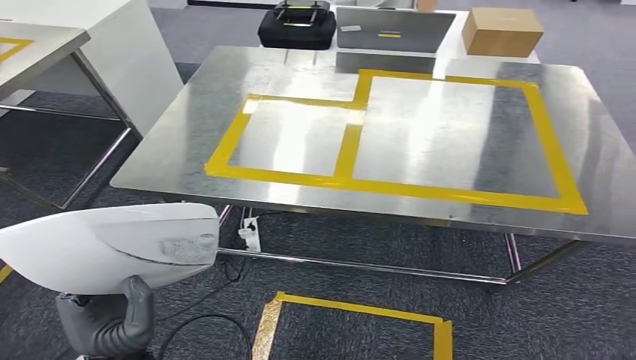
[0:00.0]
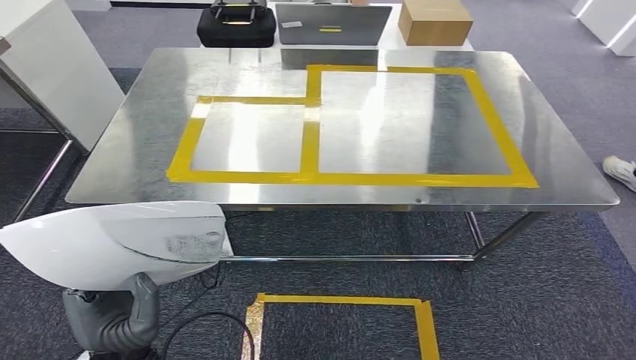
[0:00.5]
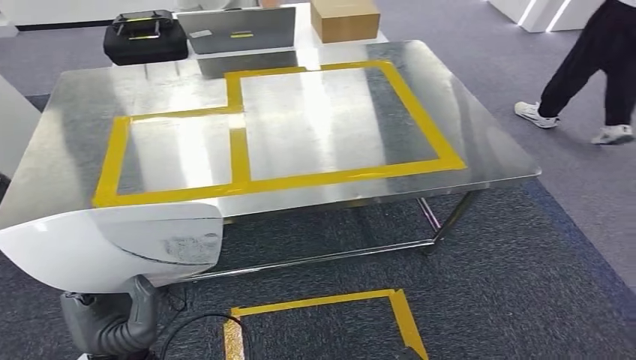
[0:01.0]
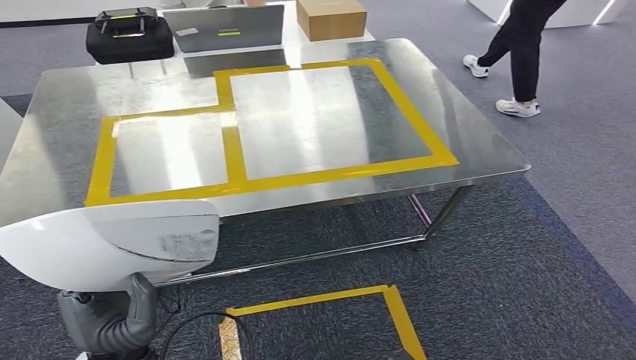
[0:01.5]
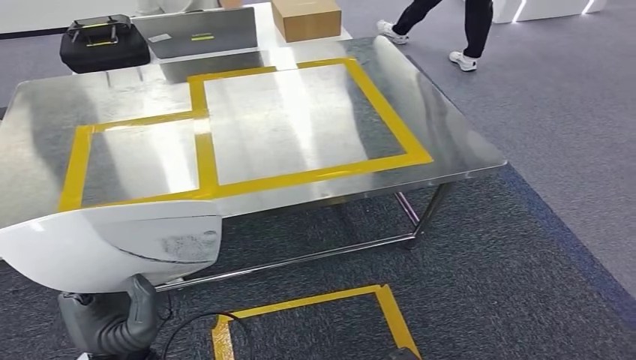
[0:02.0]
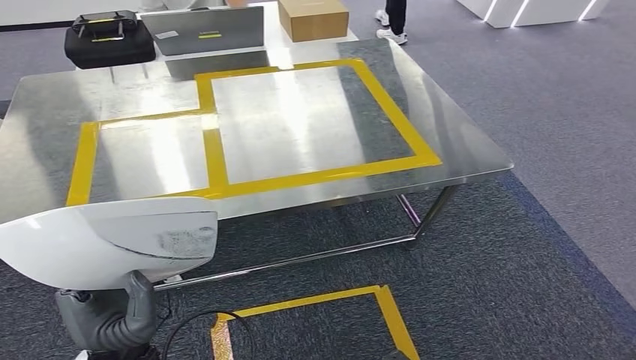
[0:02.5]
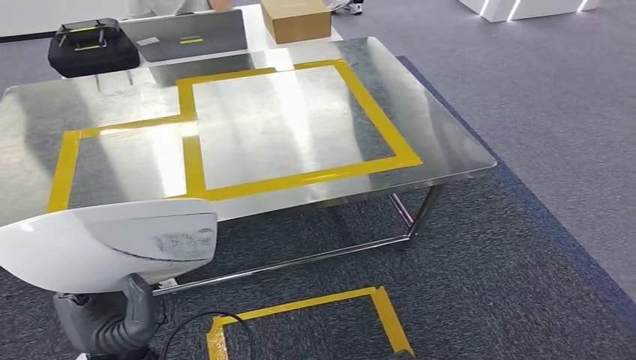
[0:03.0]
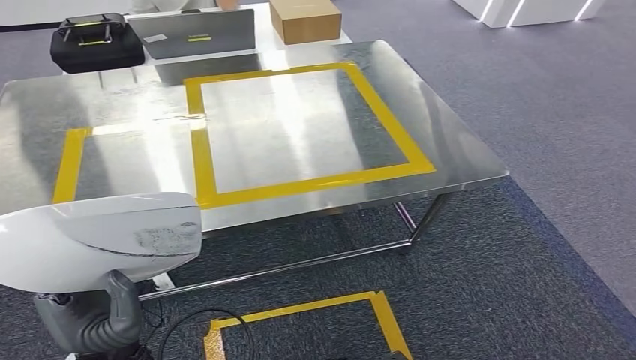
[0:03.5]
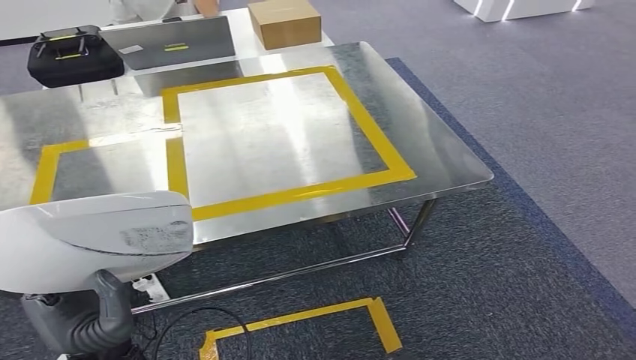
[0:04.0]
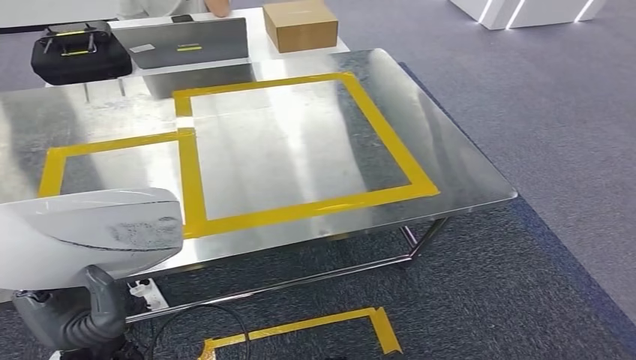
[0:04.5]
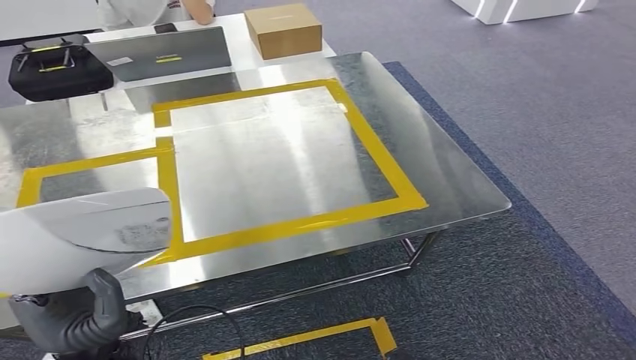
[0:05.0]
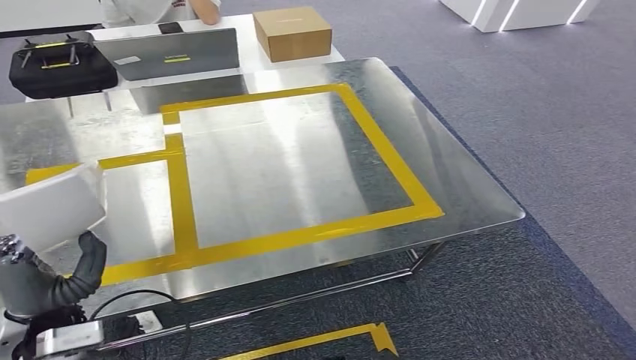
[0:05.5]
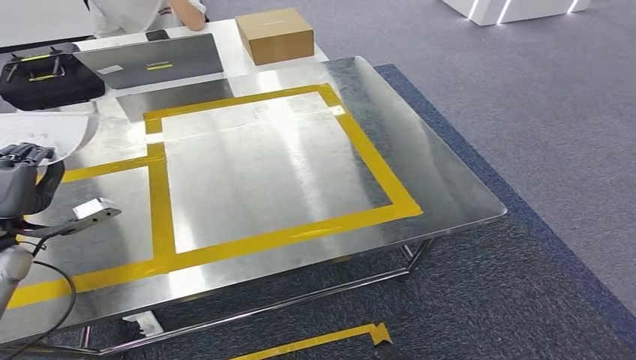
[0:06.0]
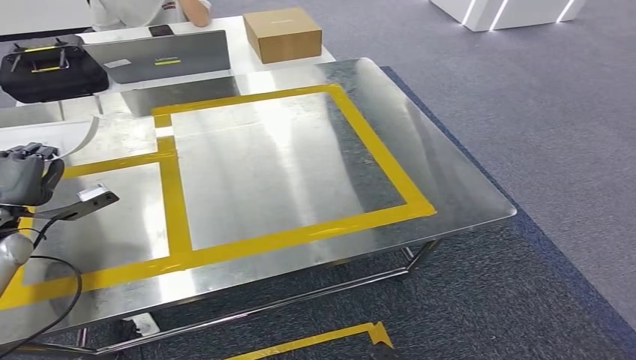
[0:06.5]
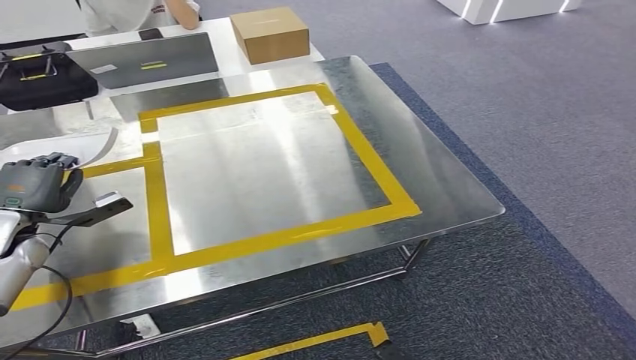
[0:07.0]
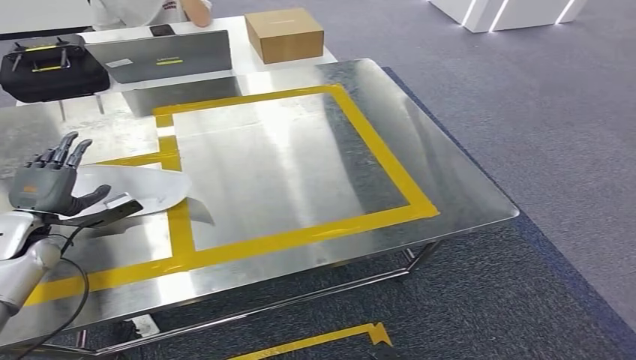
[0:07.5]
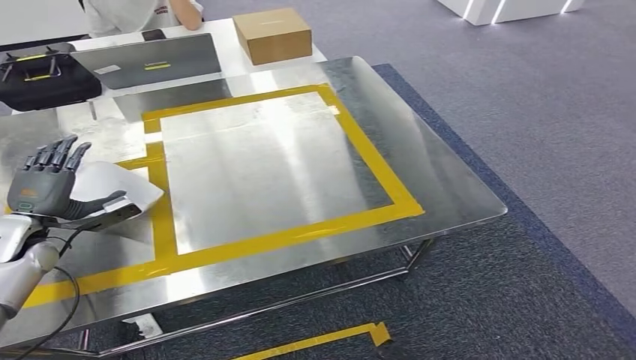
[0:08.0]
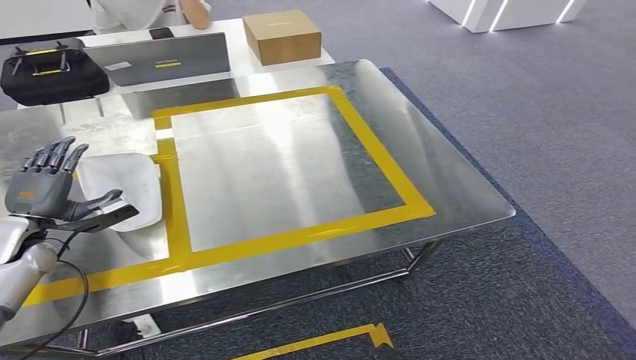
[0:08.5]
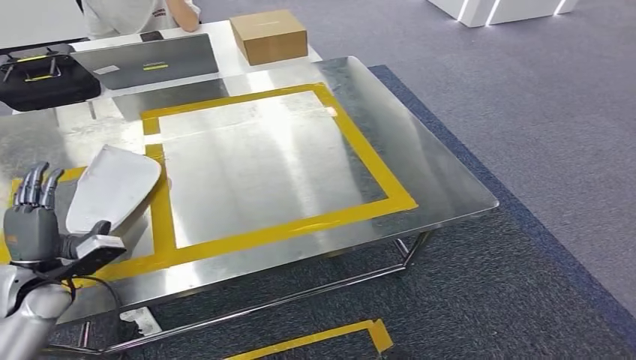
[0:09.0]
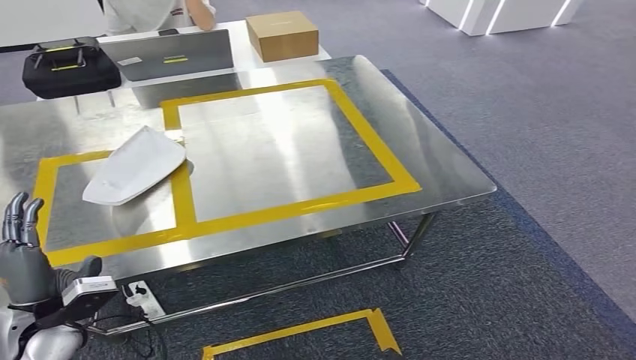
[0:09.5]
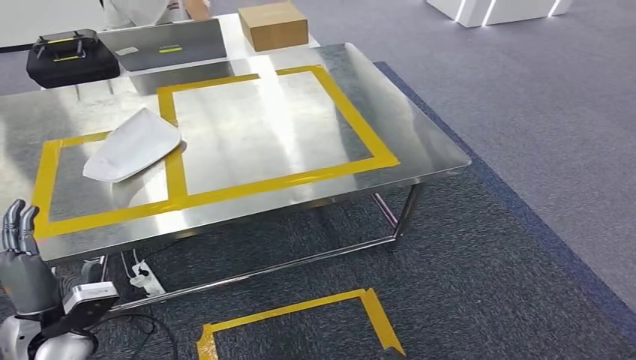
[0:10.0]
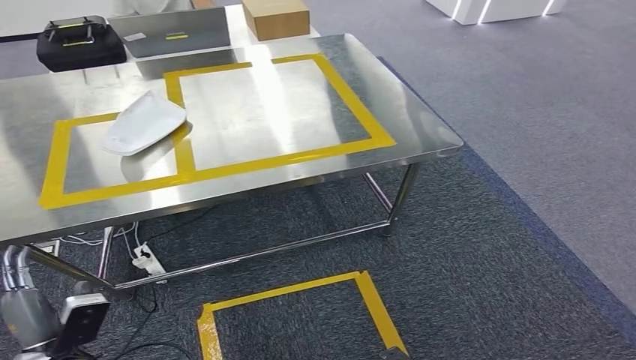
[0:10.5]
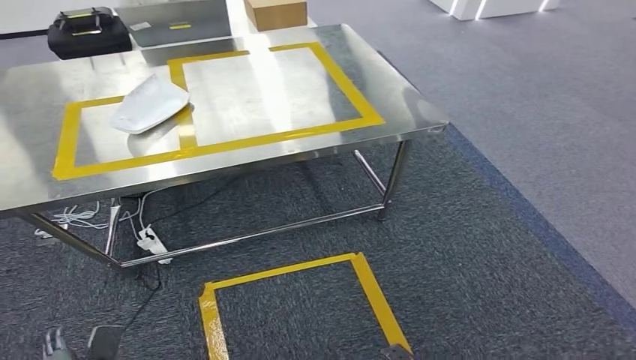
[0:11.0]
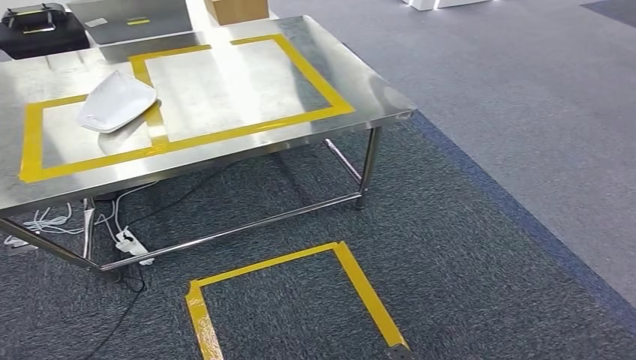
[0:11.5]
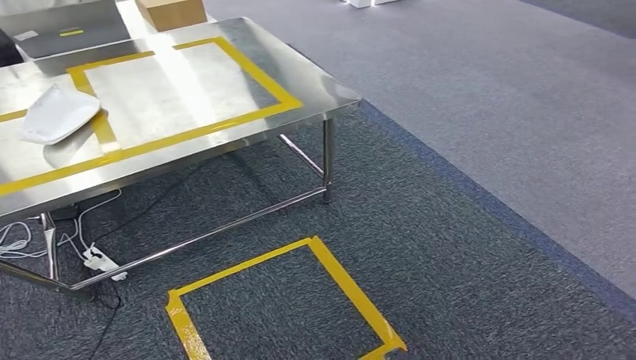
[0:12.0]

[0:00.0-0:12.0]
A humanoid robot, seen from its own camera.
Step, 0:01.0 to 0:09.5: Insert the small component into the corresponding slot on the workbench.
0:06.0 to 0:08.0: The left hand goes some 5 cm downward.

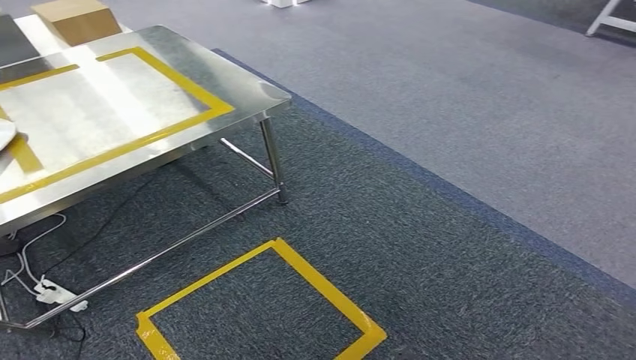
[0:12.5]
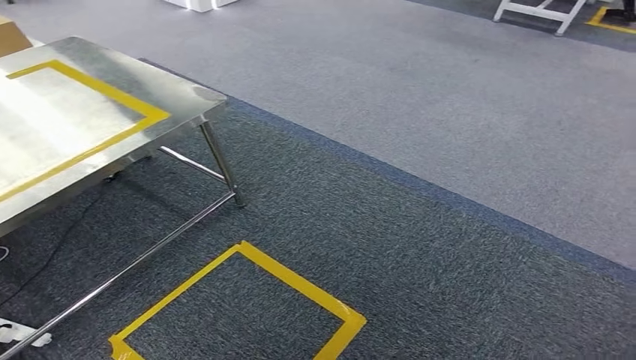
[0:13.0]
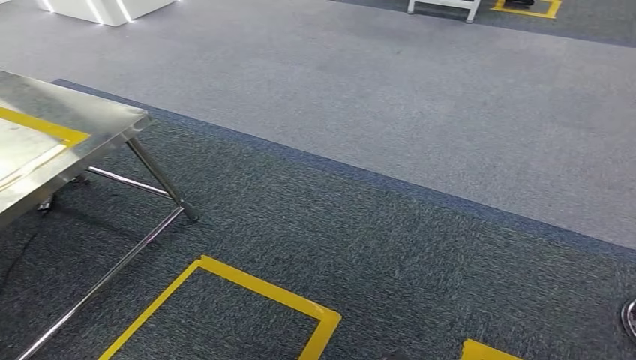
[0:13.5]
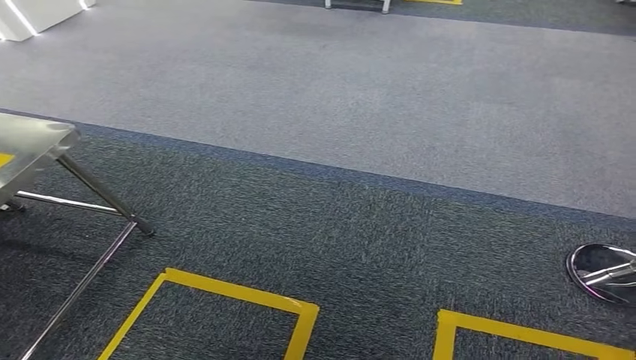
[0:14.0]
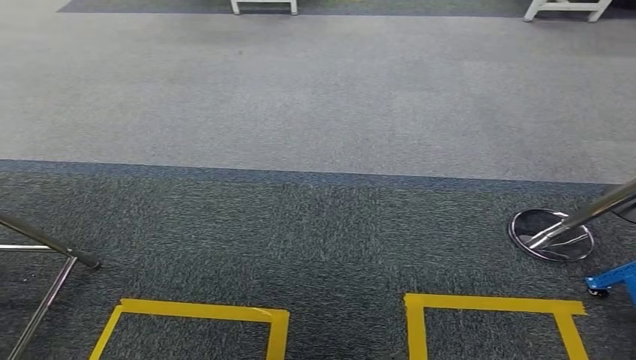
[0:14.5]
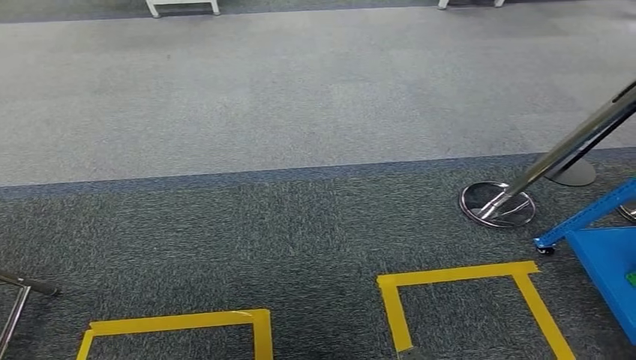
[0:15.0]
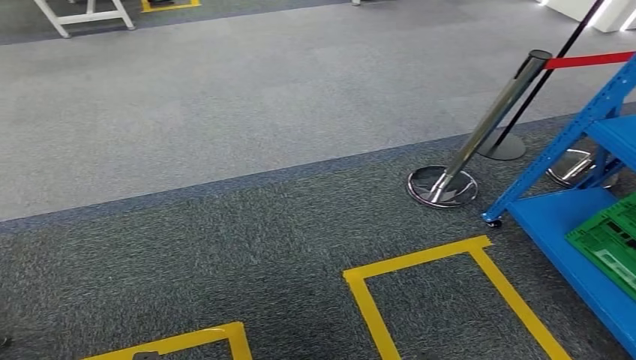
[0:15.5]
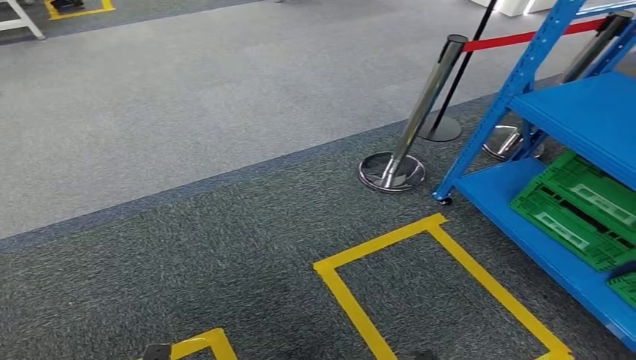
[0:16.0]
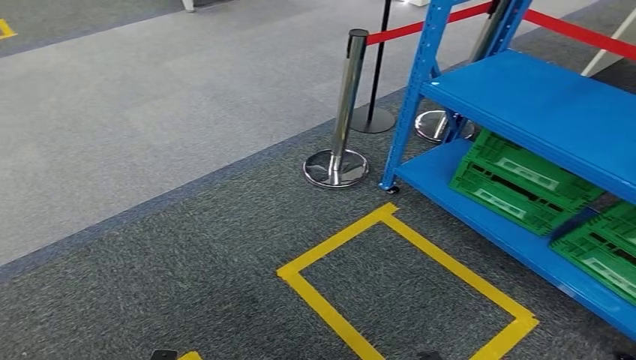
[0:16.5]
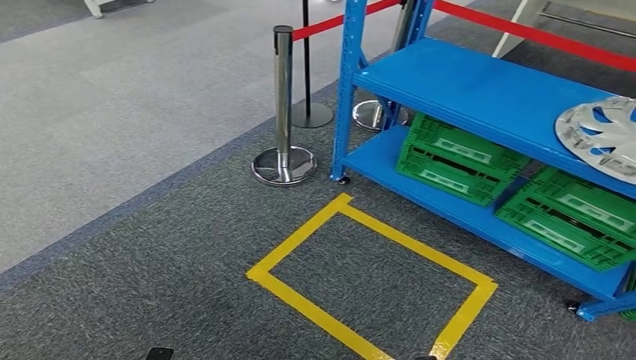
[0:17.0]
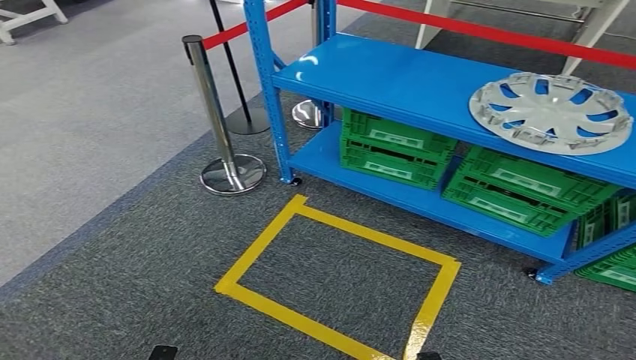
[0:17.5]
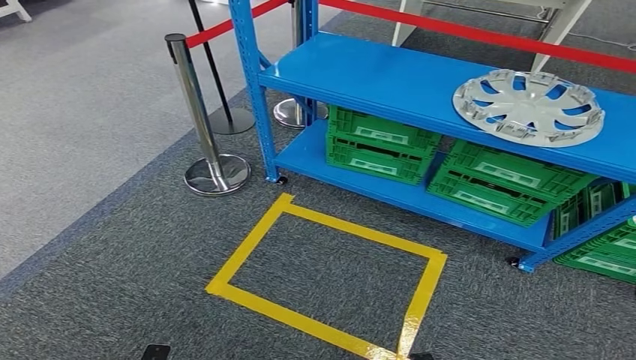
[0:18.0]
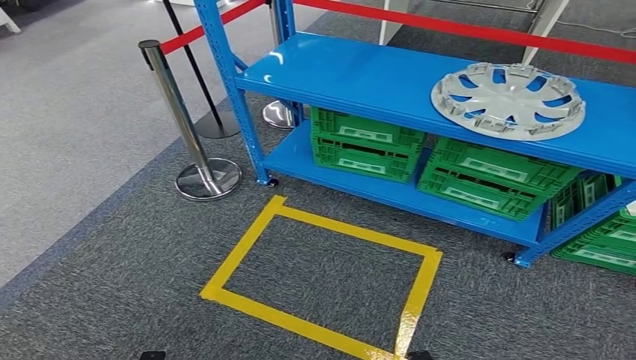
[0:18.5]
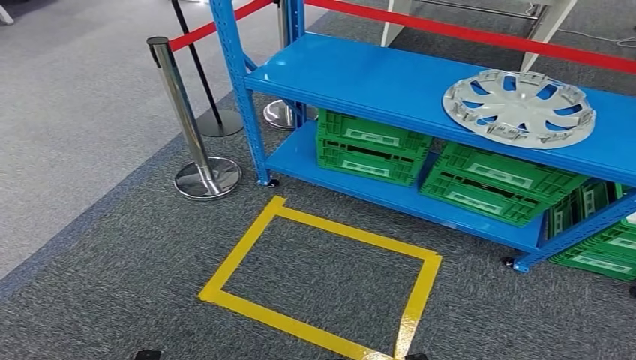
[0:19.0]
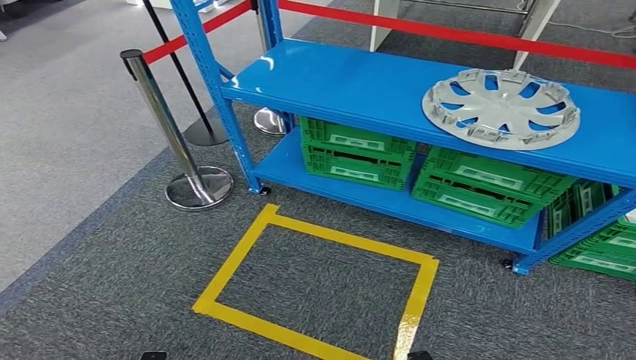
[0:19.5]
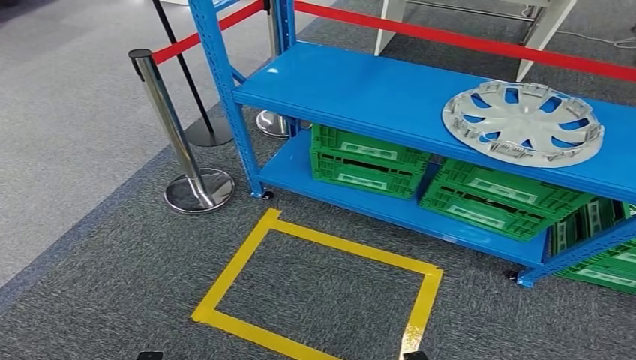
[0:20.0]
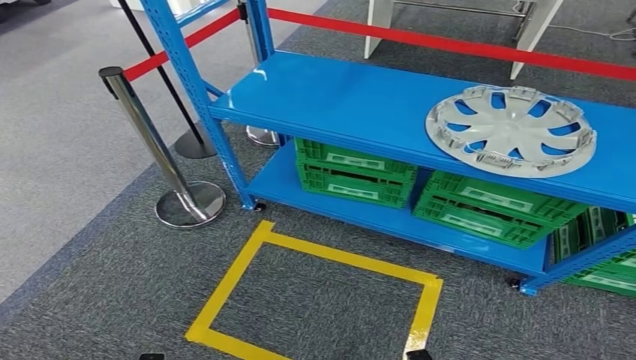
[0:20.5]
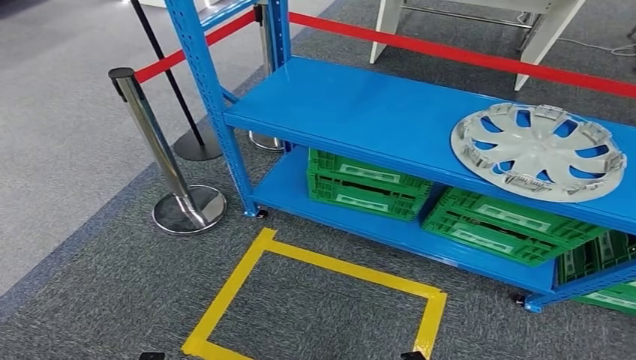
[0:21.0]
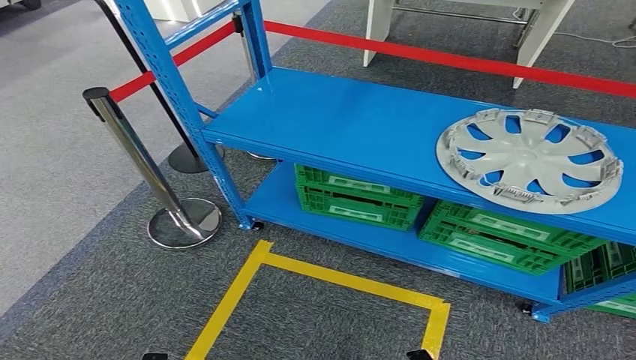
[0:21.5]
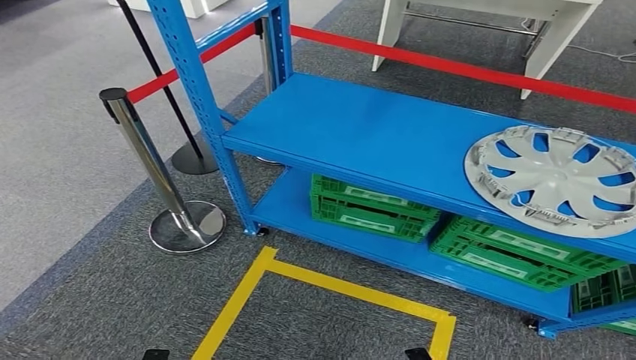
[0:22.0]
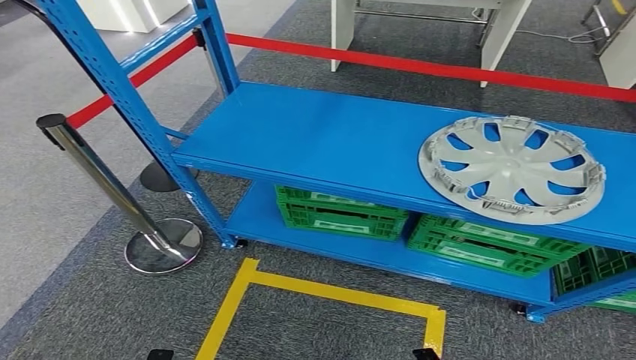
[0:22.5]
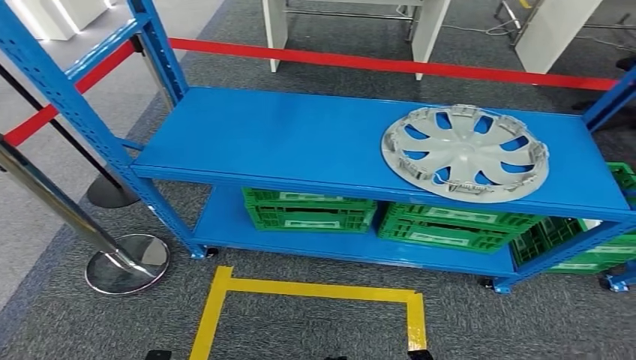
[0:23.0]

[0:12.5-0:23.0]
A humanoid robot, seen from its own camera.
Step, 0:12.5 to 0:23.0: Move to the initial position of the workbench.
